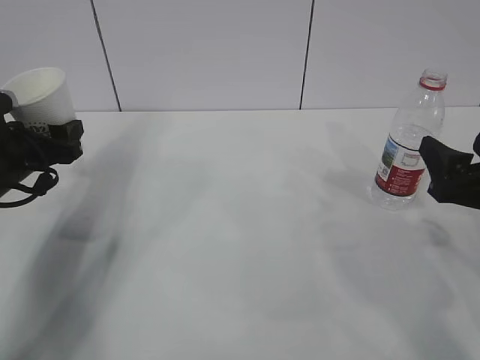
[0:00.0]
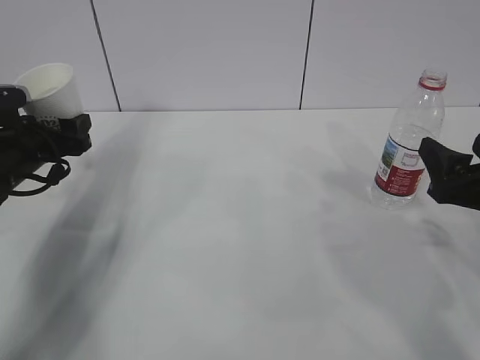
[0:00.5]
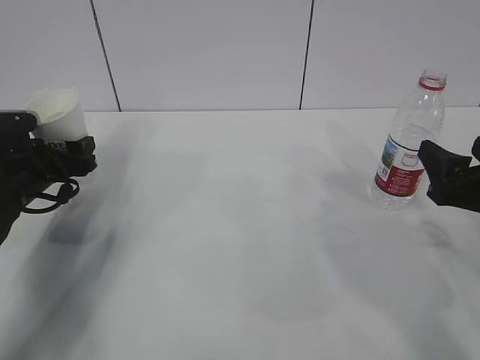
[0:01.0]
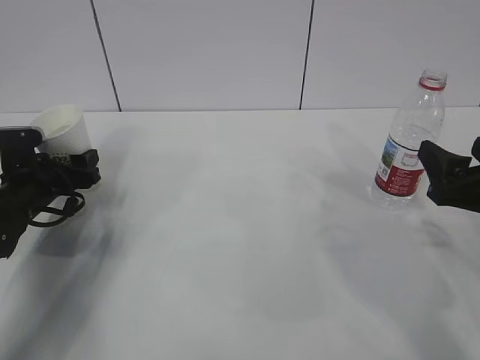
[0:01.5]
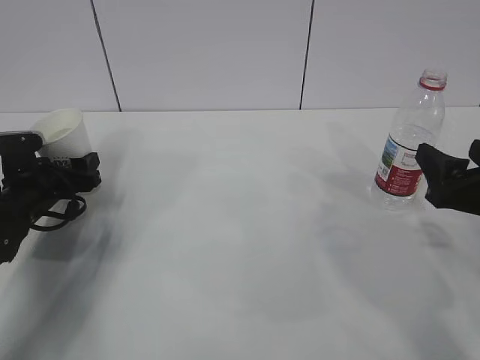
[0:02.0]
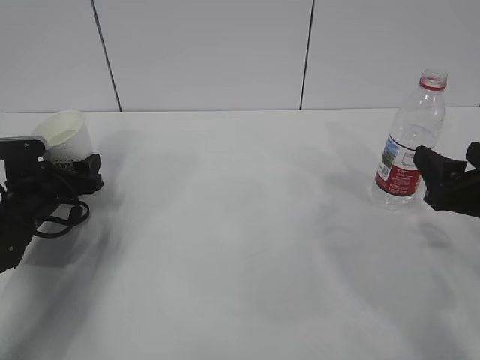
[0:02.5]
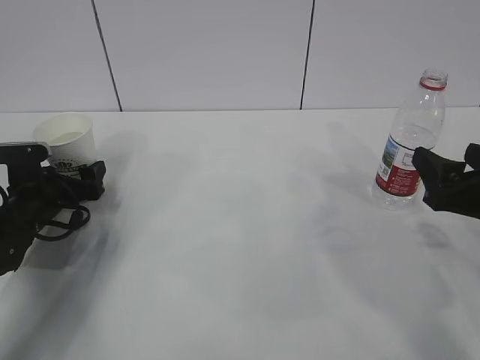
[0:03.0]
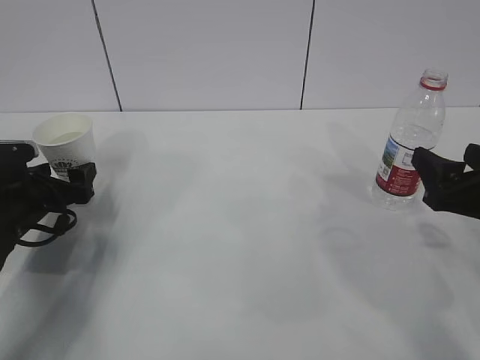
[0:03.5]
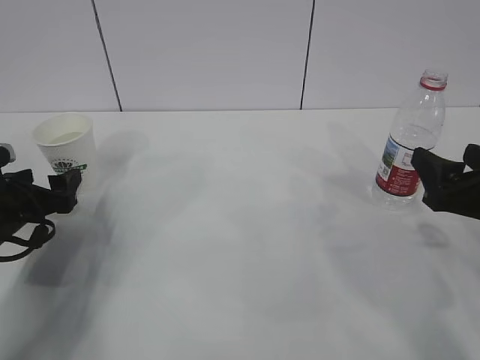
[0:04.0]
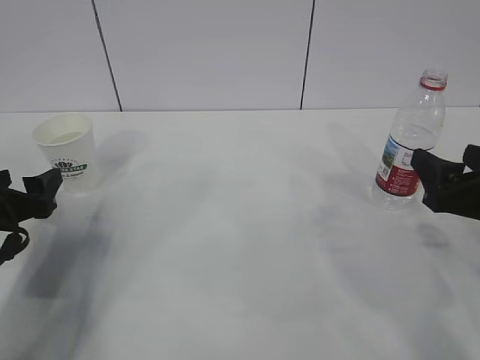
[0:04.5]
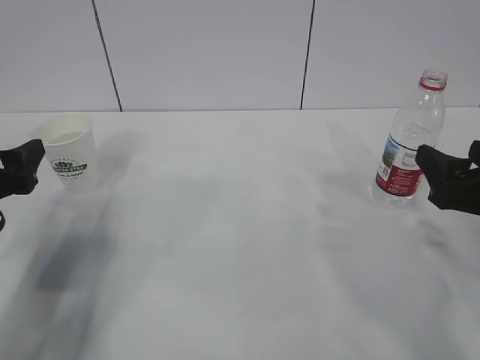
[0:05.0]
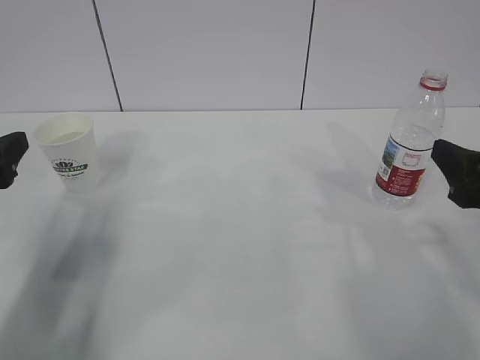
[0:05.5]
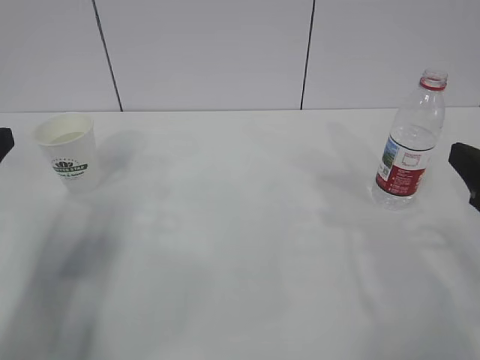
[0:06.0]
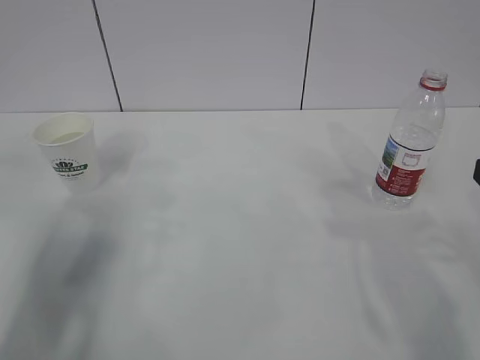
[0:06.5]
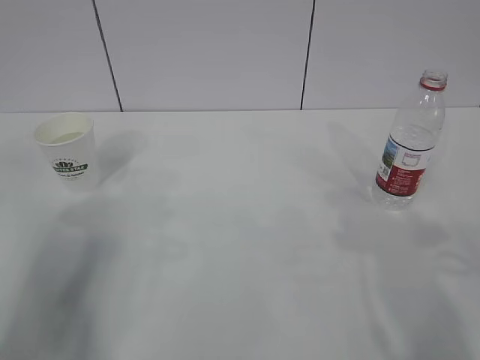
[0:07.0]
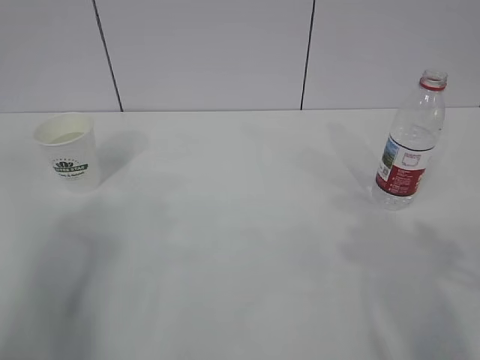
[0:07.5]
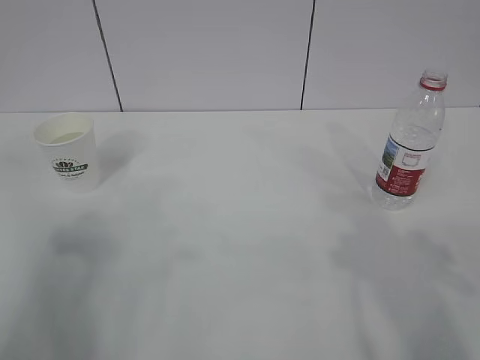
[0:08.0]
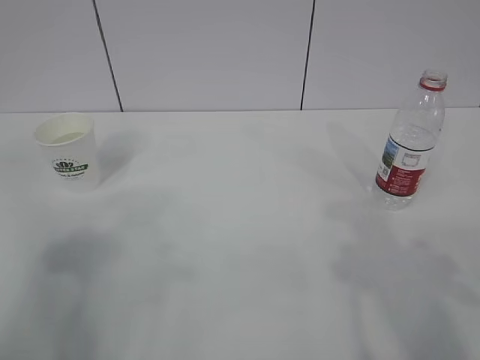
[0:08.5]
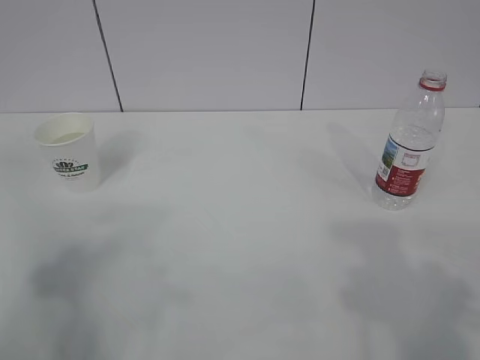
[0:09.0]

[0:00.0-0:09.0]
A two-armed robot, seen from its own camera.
0:00.0 to 0:02.0: The left gripper heads downward, covering about 10 cm.
0:02.0 to 0:04.5: The left gripper moves backward and upward, roughly 10 cm, and opens up.
0:04.5 to 0:07.0: The right gripper is displaced backward and upward by approximately 10 cm; the left gripper shifts roughly 20 cm upward and backward.

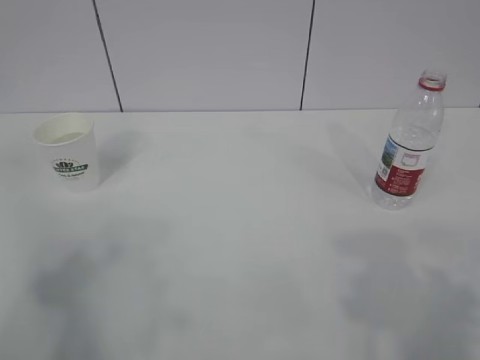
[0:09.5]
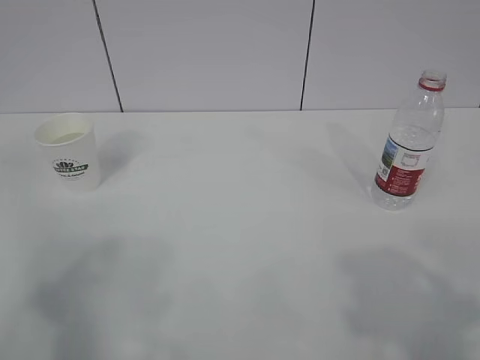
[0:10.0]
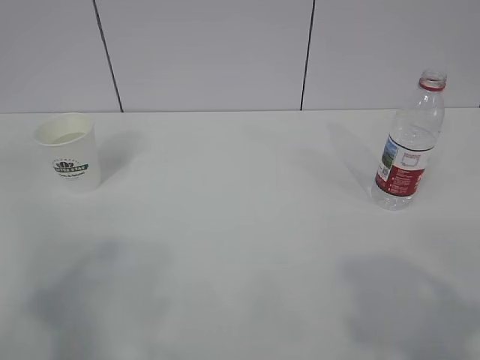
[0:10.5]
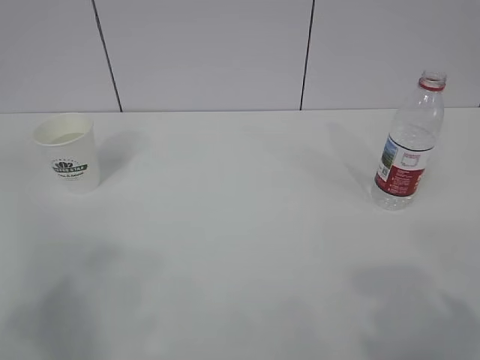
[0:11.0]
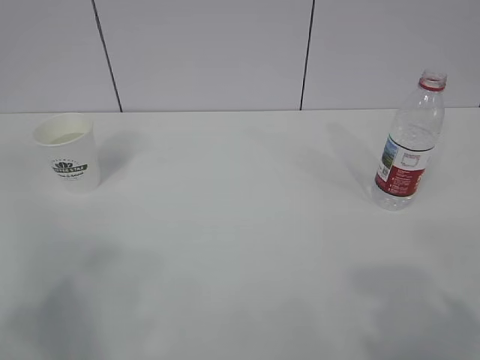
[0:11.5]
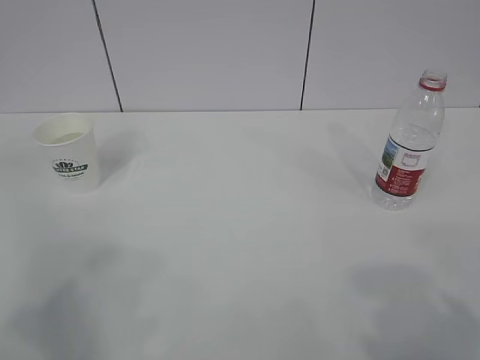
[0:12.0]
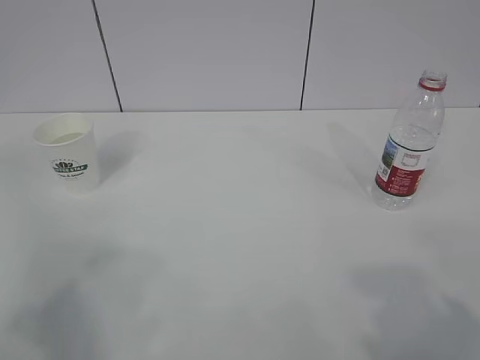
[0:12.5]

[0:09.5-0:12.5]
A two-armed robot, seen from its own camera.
0:11.0 to 0:12.5: Both grippers stay put.

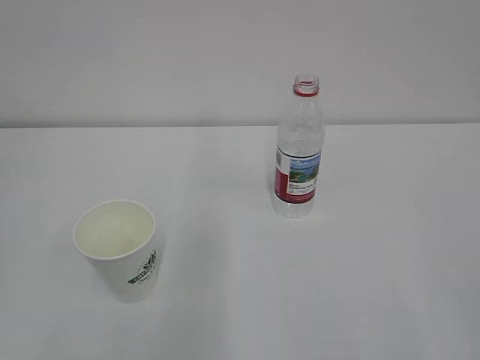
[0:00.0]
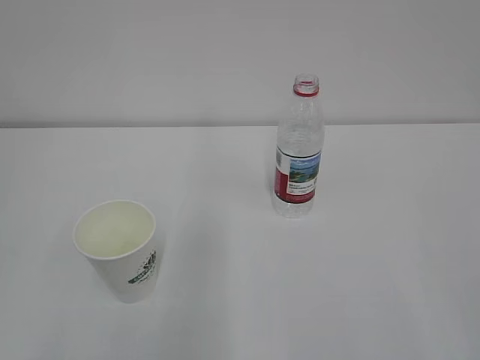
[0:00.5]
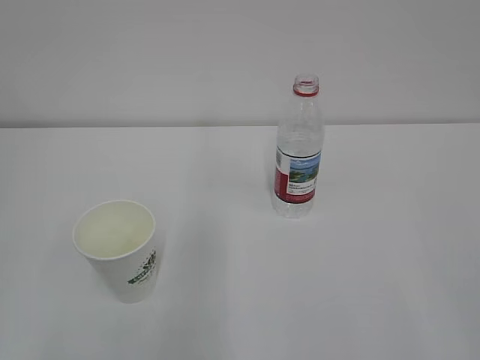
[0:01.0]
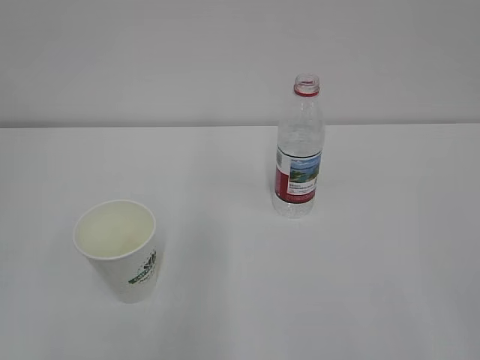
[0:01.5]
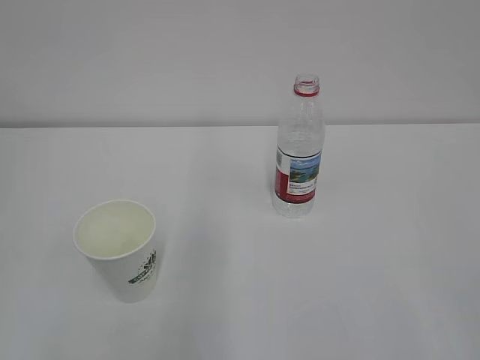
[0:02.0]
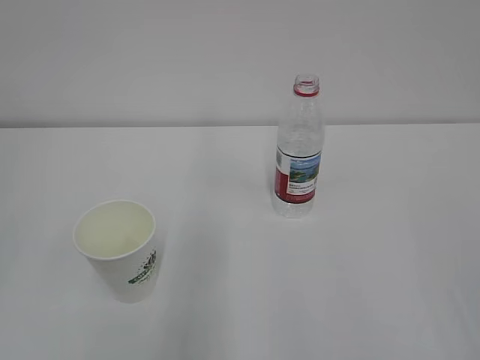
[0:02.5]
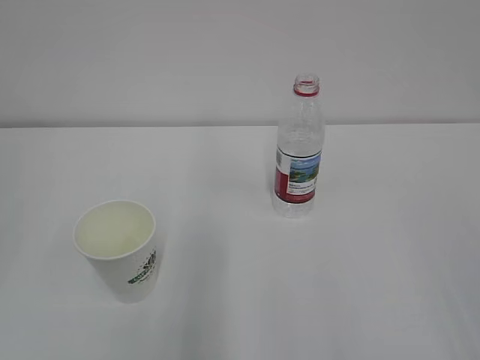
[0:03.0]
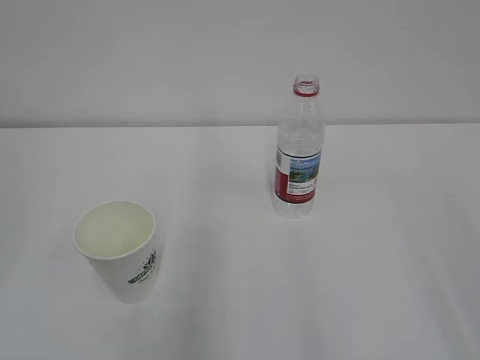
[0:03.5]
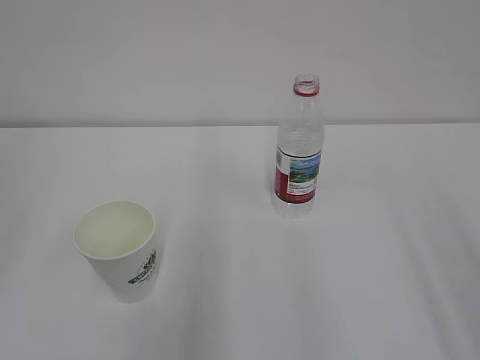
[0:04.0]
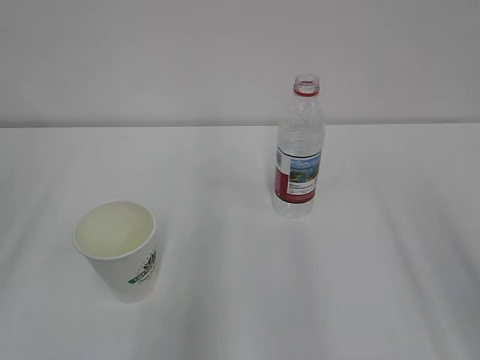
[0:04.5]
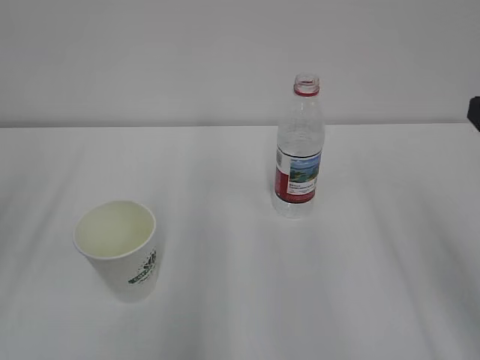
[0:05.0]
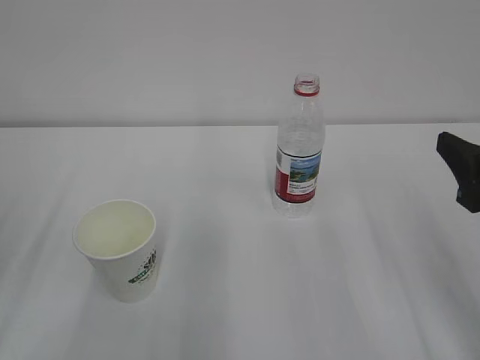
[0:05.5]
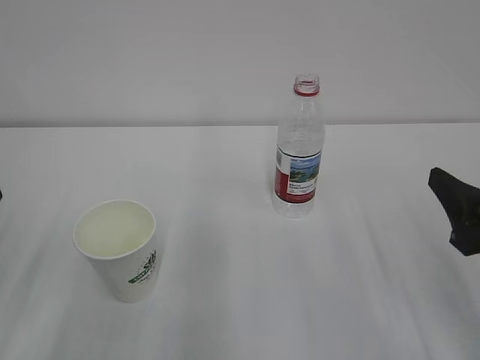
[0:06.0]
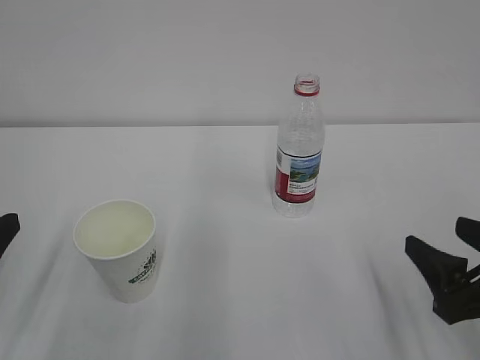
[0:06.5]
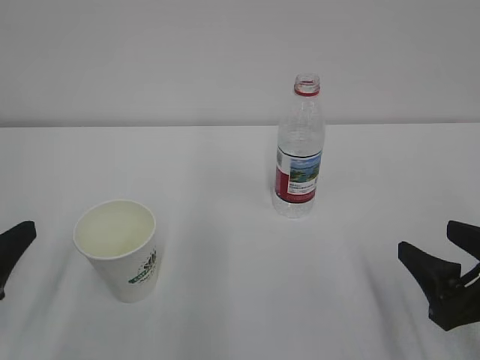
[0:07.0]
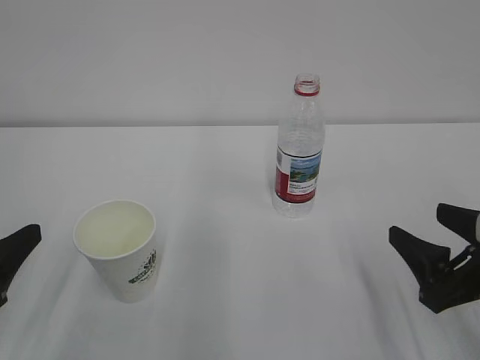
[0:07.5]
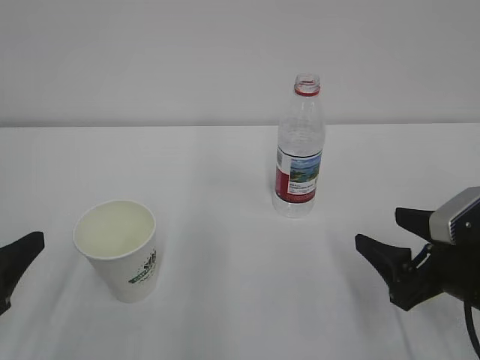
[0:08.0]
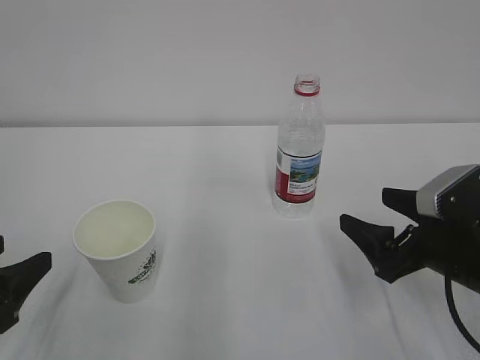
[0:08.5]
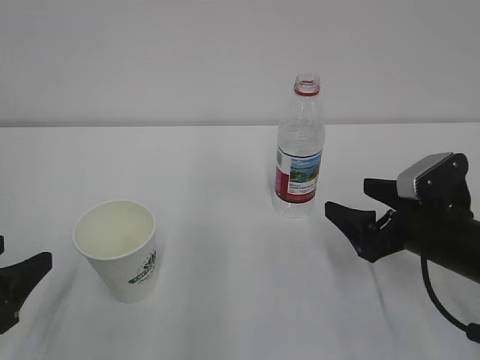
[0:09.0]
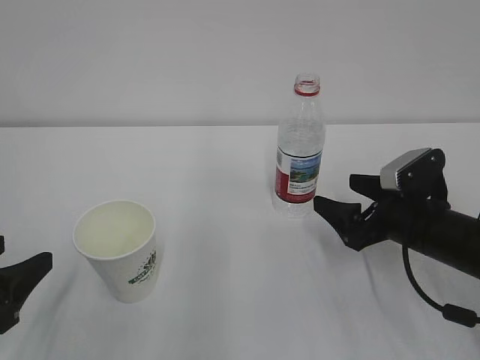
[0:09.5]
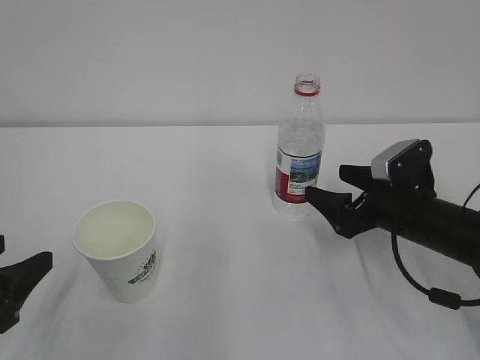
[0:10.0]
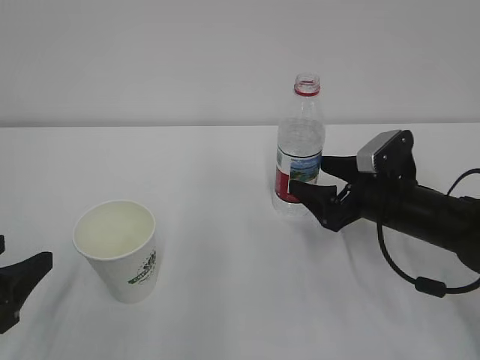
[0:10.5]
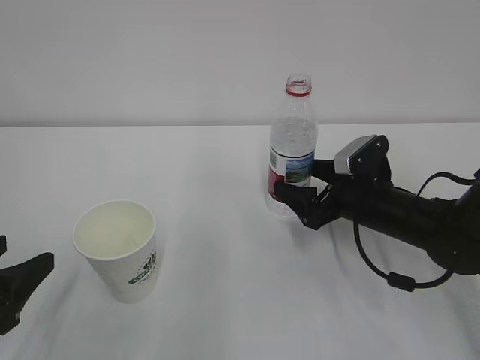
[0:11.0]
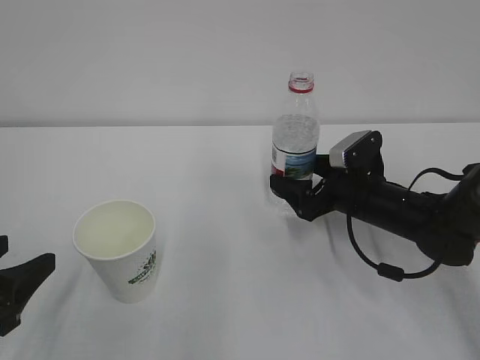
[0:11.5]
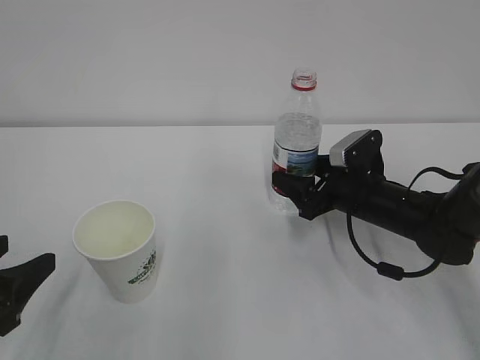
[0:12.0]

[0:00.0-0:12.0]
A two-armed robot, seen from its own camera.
0:04.0 to 0:06.0: The right gripper shifts some 15 cm downward and forward.
0:06.0 to 0:08.0: The right gripper travels downward by about 5 cm.
0:08.0 to 0:10.0: The right gripper goes roughly 10 cm forward, and opens its fingers.
0:10.0 to 0:12.0: The right gripper is displaced forward by some 5 cm, and closes its fingers.

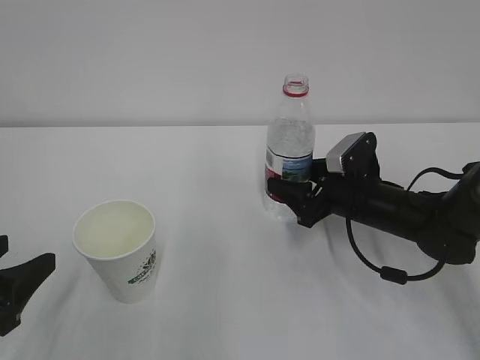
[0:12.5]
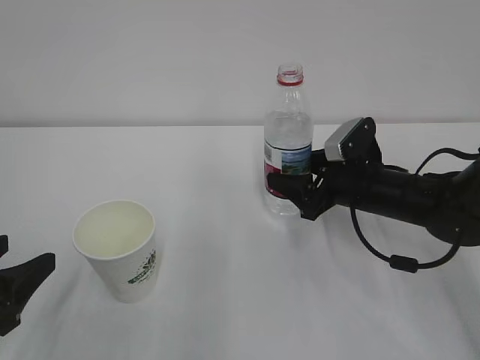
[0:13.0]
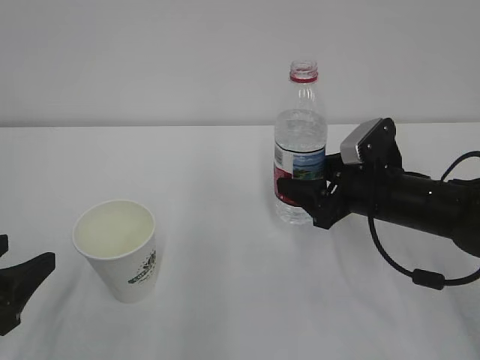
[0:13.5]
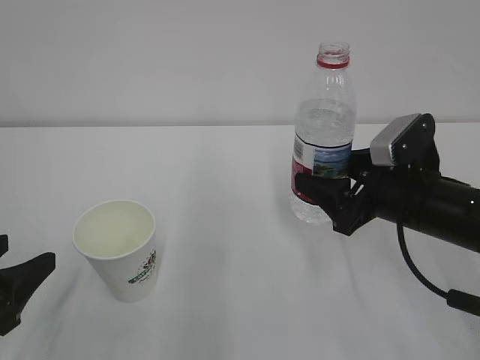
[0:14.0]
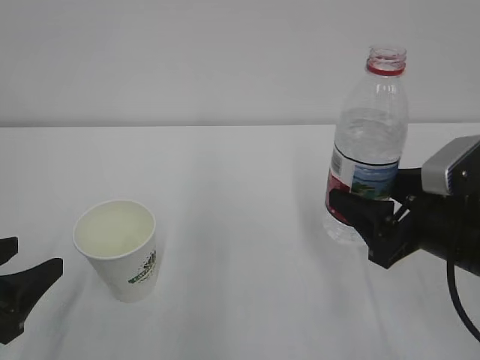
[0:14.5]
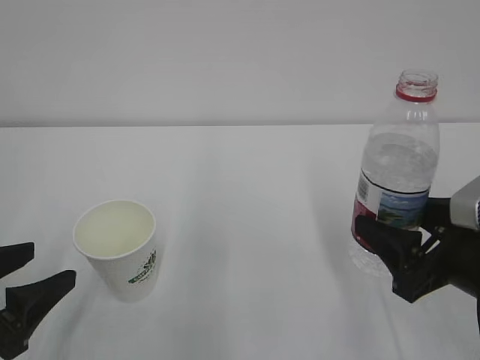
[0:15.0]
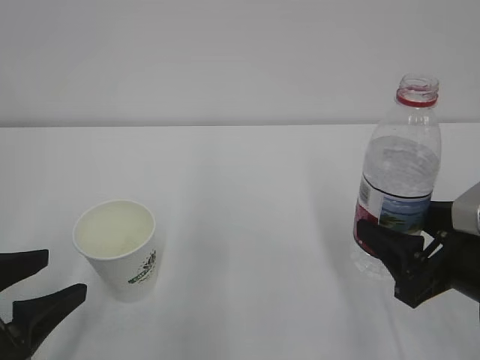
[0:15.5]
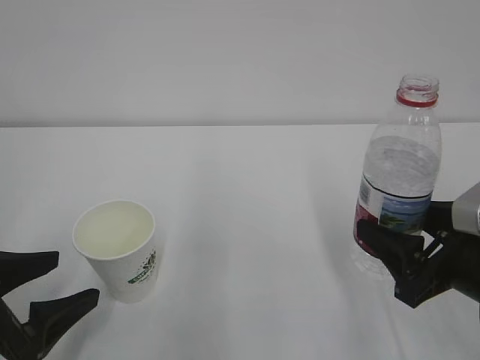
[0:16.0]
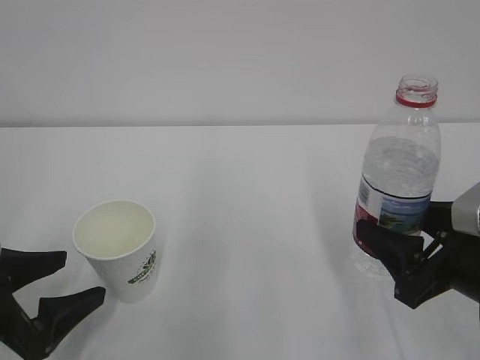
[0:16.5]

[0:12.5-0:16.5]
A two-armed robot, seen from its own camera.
0:12.5 to 0:14.5: The right gripper goes roughly 15 cm backward and upward.
0:14.5 to 0:16.5: The left gripper opens.
